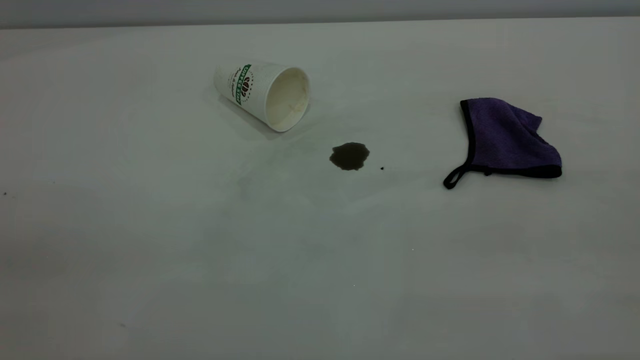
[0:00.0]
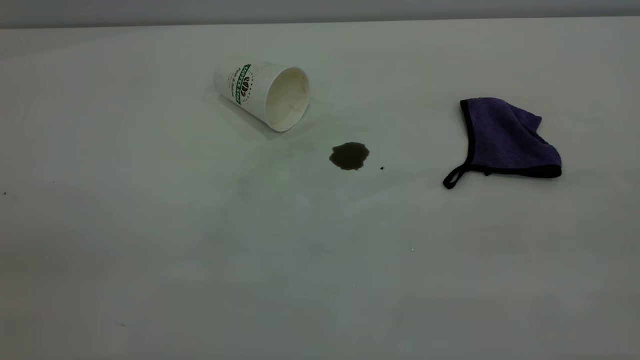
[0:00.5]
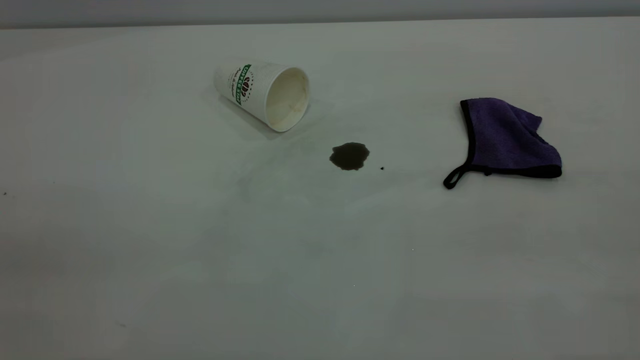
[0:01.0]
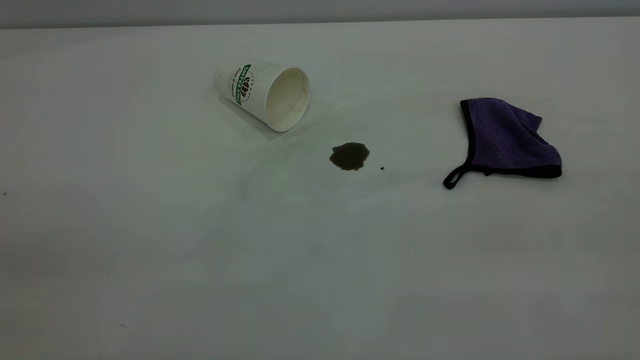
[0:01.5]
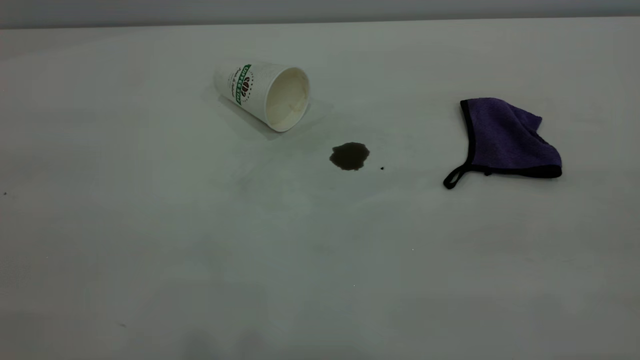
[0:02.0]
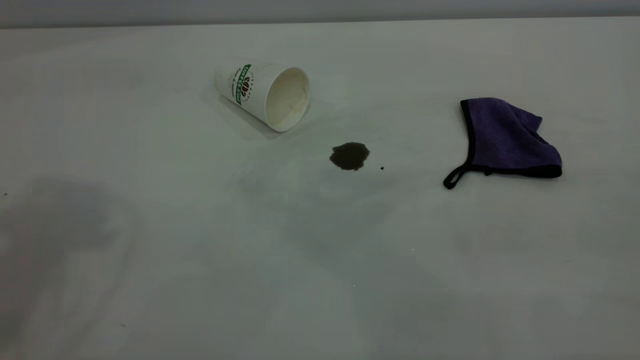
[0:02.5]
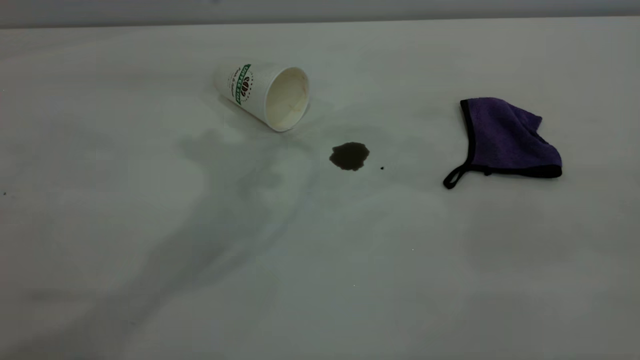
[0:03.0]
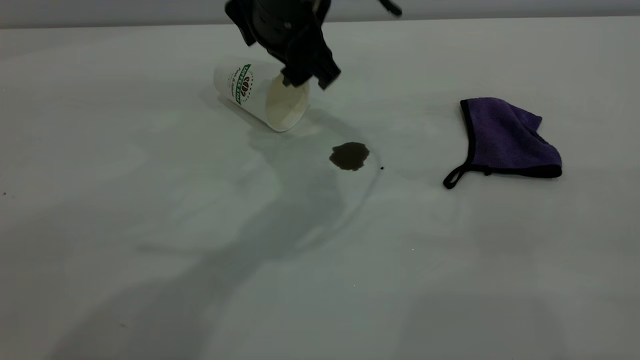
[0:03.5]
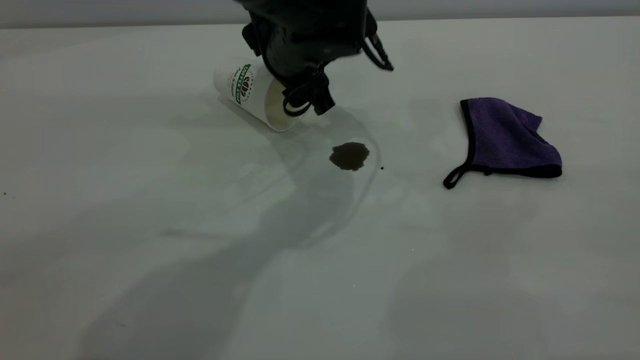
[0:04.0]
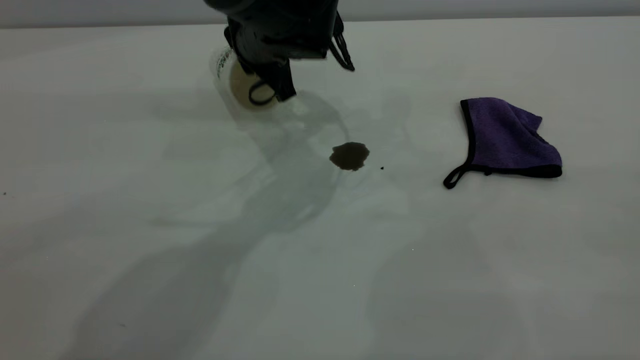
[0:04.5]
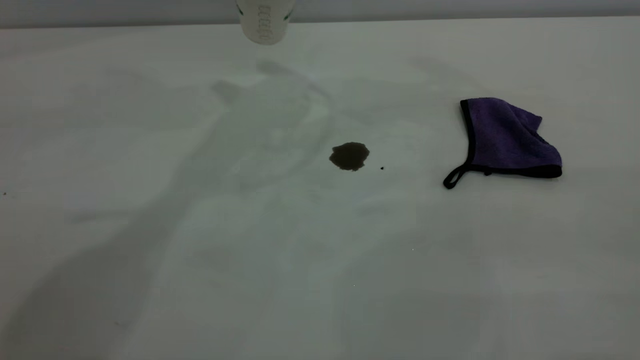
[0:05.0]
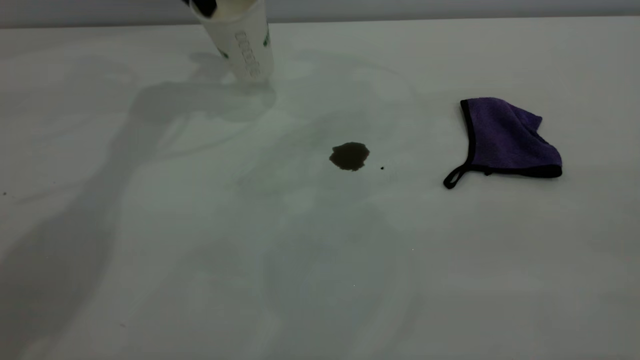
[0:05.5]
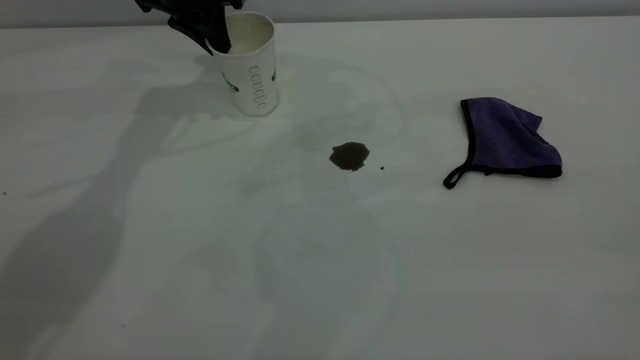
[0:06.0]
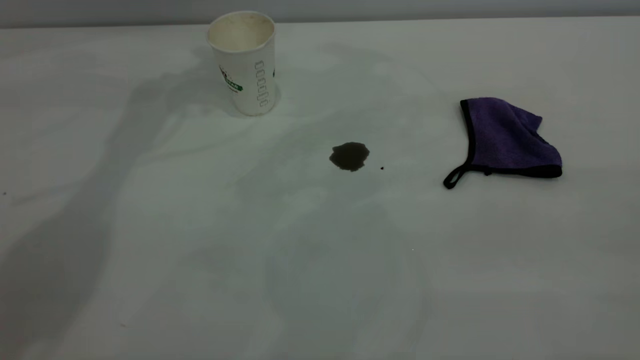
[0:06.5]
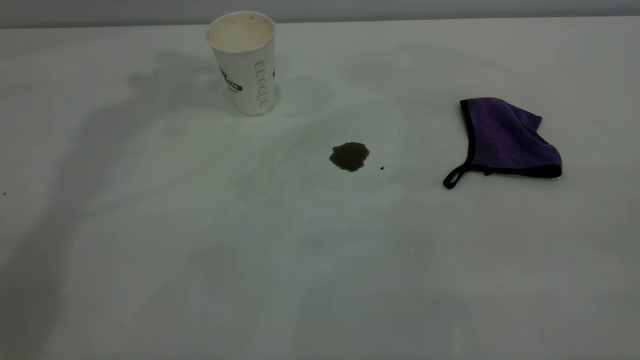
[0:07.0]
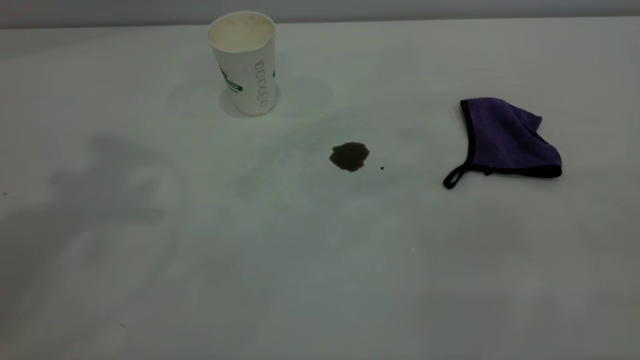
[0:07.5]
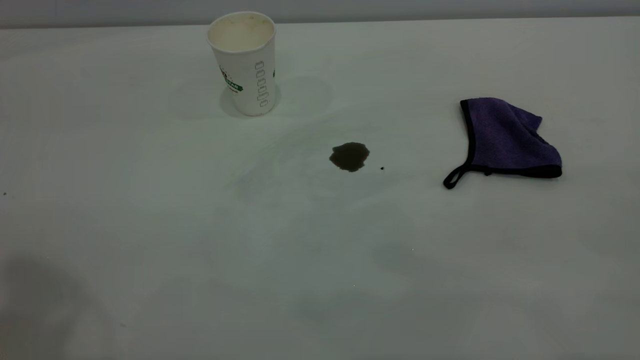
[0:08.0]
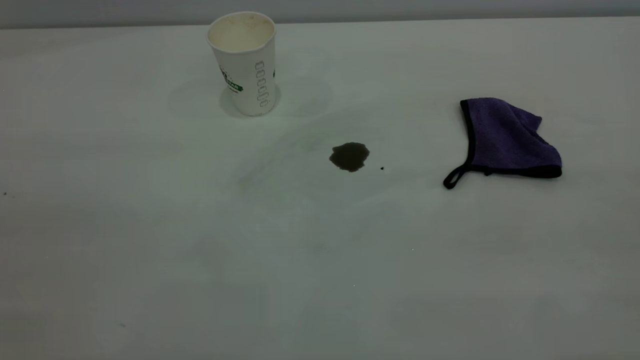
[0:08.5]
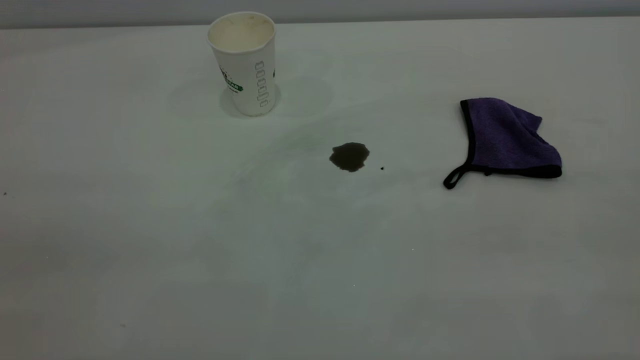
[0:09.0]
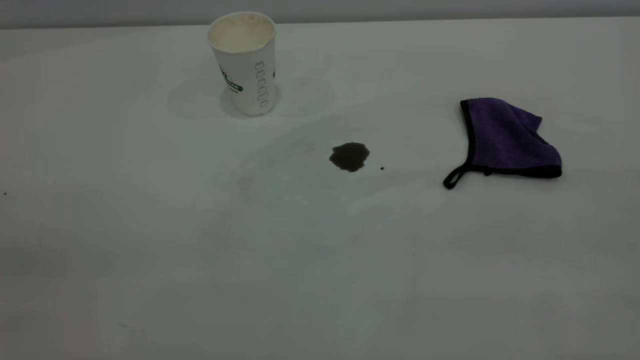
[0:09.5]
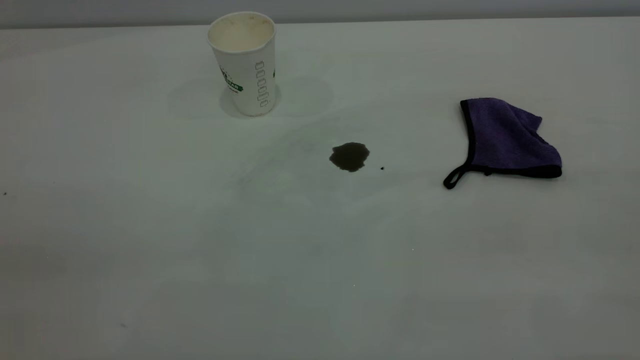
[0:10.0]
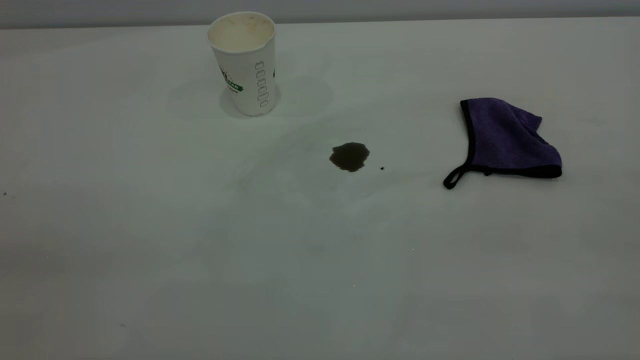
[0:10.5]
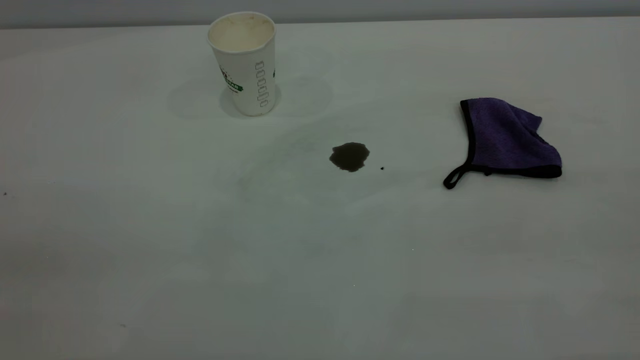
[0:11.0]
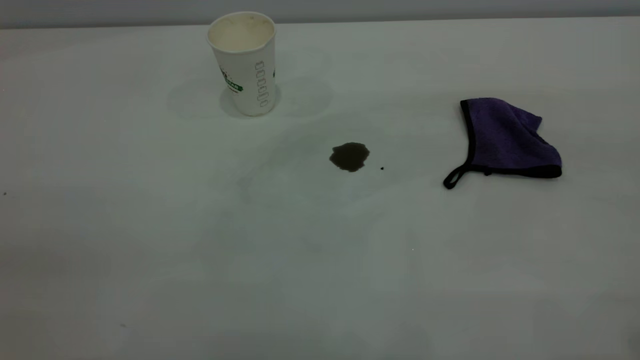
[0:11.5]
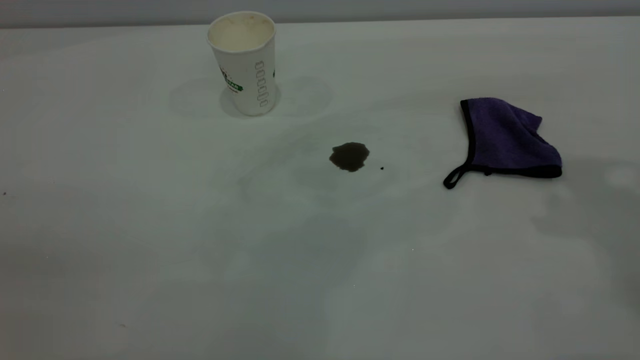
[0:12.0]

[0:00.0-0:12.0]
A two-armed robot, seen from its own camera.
Task of the whole recording: the left gripper pick up the fallen cup and place it upright, the right gripper grasp the purple rag and wipe the coffee stain on the table, the right gripper put the purple rag back in its original position.
Step, 0:00.0 to 0:06.0: Stand the paper cup upright.
0:02.0 to 0:04.0: The left gripper heads forward, downward and to the right, covering roughly 50 cm.
0:04.0 to 0:06.0: The left gripper travels to the left and forward by roughly 20 cm, travels upward and back again, some 15 cm each way, and closes.
0:06.0 to 0:08.0: The left gripper heads backward and upward, covering about 50 cm, and opens, then closes again.

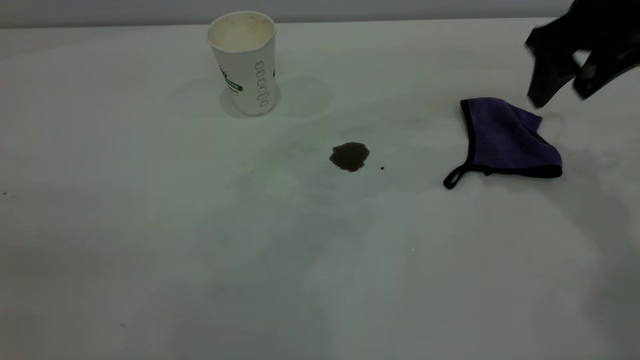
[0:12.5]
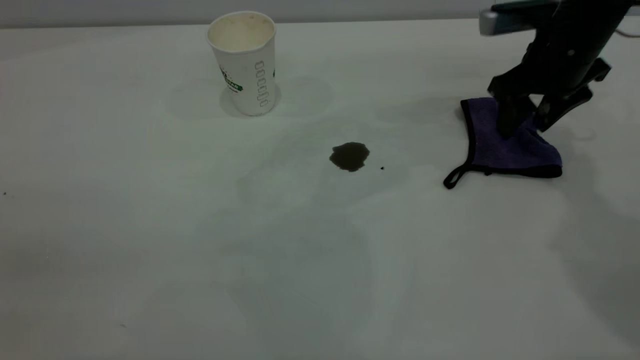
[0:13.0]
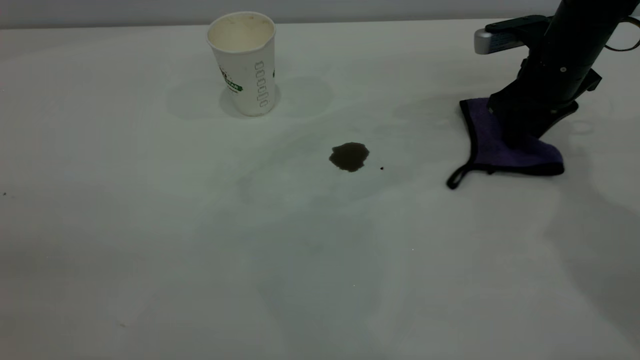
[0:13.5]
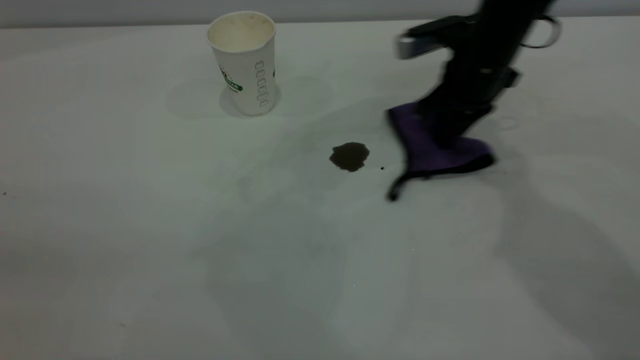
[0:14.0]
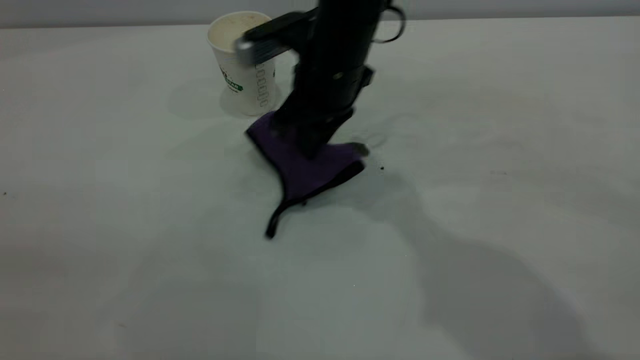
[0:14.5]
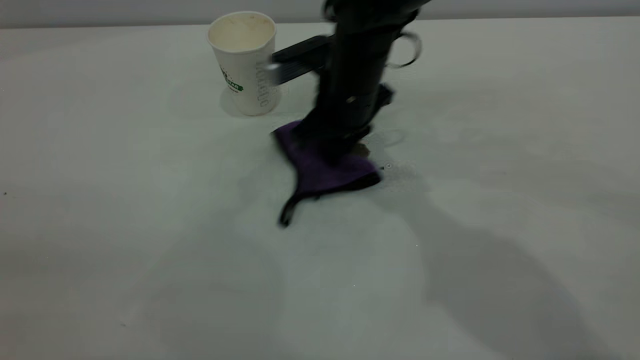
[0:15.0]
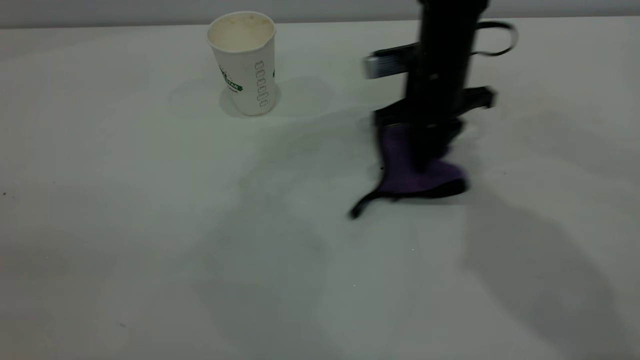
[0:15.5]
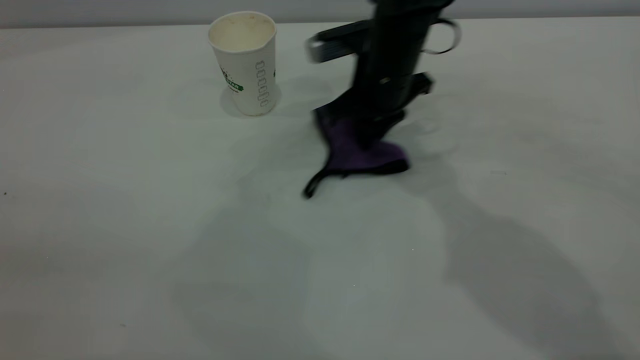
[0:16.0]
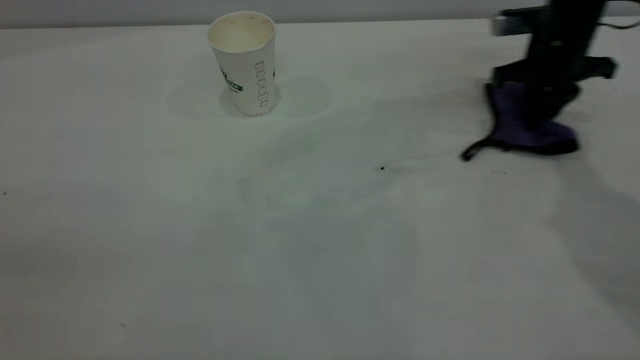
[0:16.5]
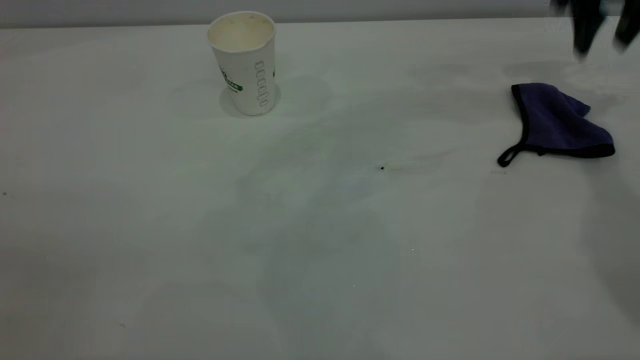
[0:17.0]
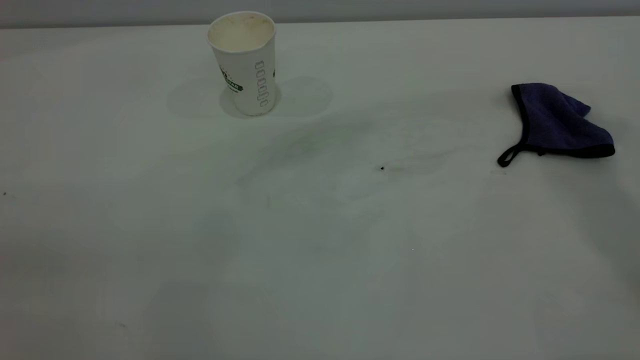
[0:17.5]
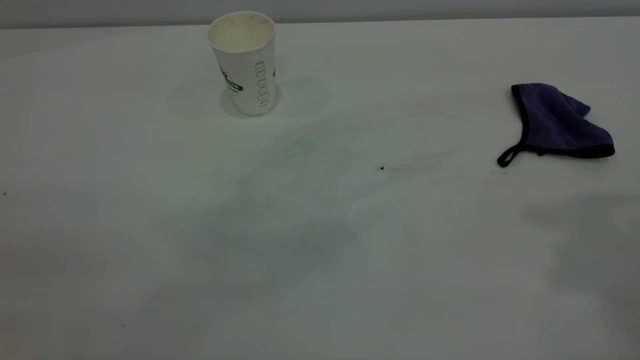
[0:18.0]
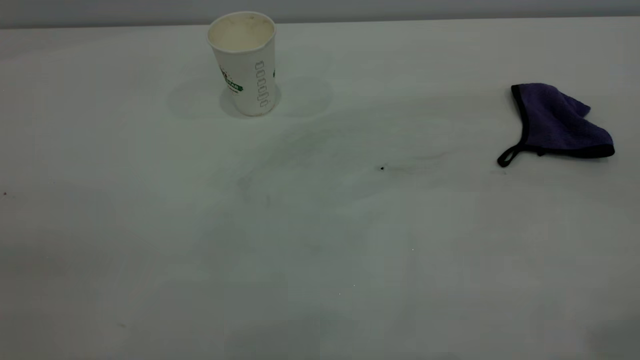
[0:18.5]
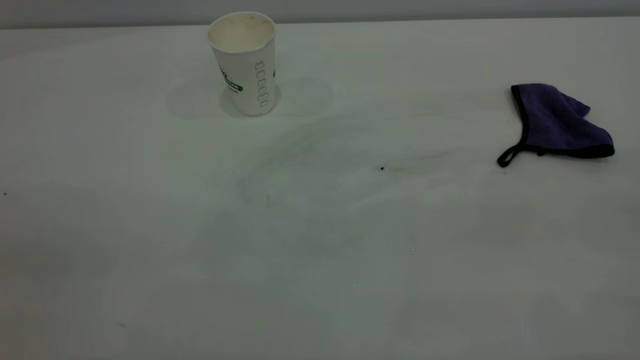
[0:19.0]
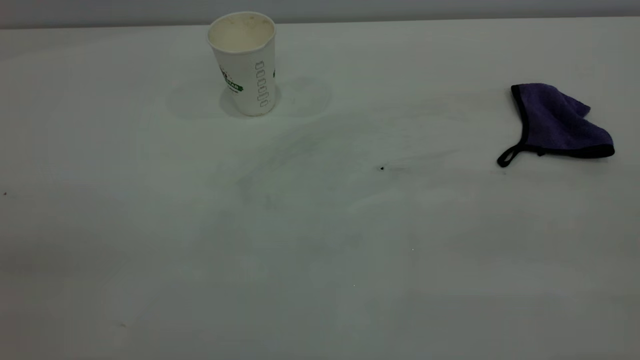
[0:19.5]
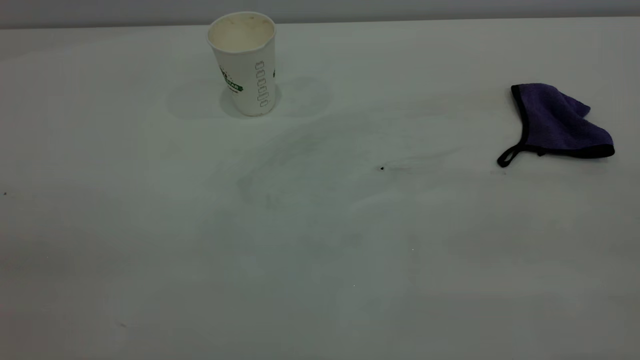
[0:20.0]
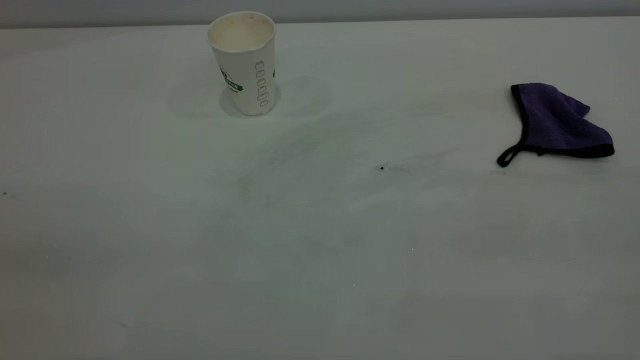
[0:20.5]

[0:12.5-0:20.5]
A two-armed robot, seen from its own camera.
Task of the whole recording: the left gripper pick up the fallen cup and place it upright, the right gripper grasp the purple rag and wipe the coffee stain on the table, the right gripper put the purple rag back in its original position.
Step, 0:12.5 to 0:16.5: Wipe the stains off the table with a rag.
0:12.5 to 0:14.5: The right gripper moves to the left, some 25 cm, and closes up.
0:14.5 to 0:16.5: The right gripper heads to the right, covering approximately 30 cm.
0:16.5 to 0:18.5: The right gripper travels backward and upward by about 50 cm, and opens up.
